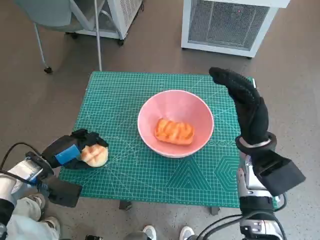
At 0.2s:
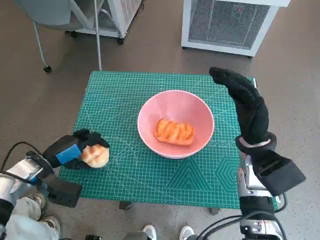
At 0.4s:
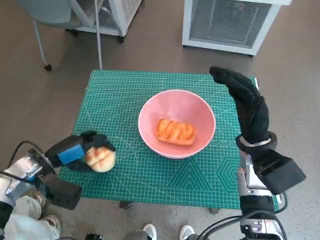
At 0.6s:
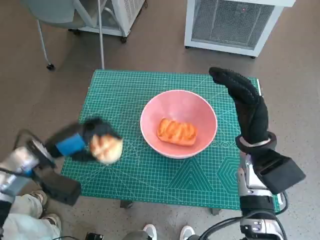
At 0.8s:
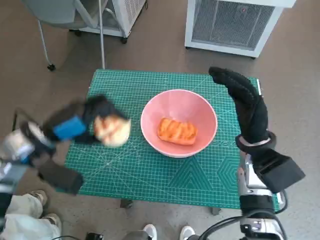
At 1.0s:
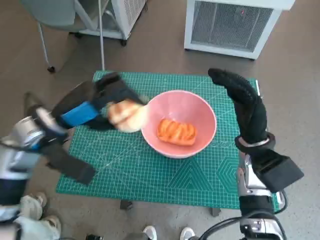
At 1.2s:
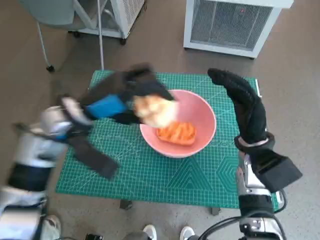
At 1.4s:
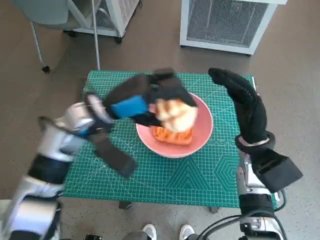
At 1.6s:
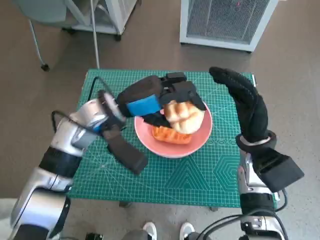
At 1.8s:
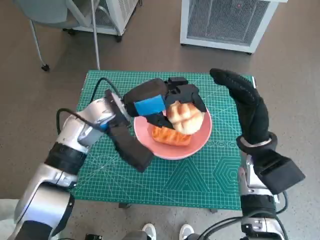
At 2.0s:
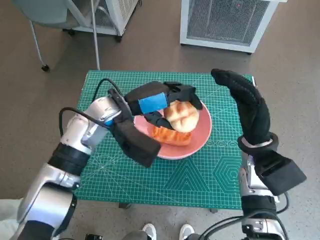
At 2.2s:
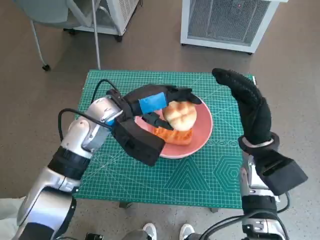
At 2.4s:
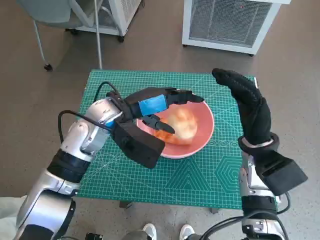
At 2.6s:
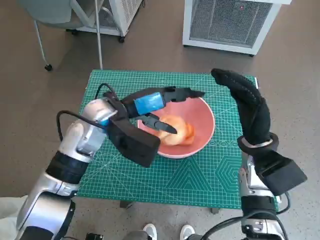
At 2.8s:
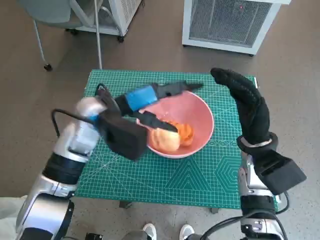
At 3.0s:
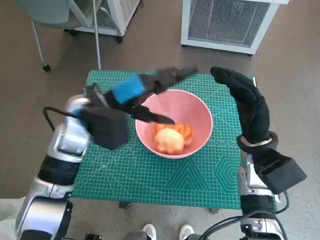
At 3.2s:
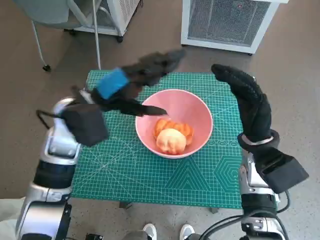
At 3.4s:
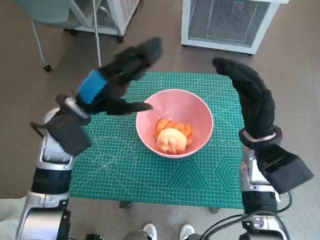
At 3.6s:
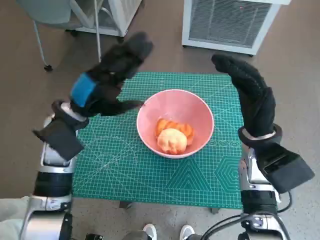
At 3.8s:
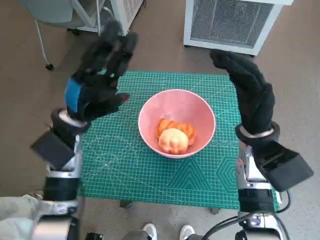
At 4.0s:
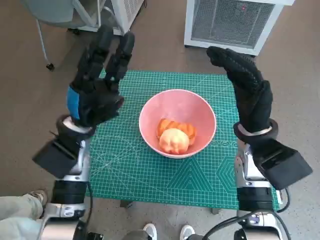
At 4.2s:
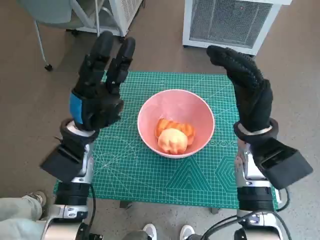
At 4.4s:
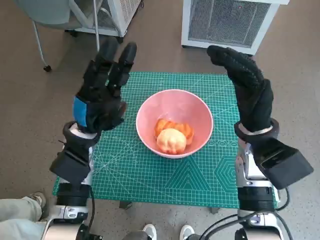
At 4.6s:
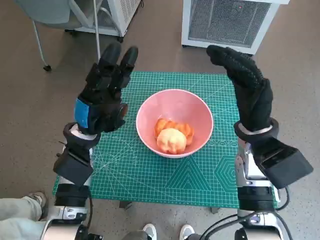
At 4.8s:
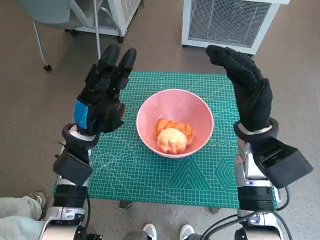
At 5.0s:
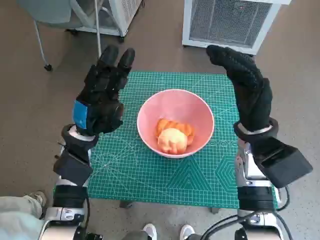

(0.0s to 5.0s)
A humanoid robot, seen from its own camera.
Task of the whole recording: Push the bowl to the center of the table and put the bread into the bowl.
Step, 0.0s - 2.8s: Place the round bread in pink bowl with left hand.
0.0s - 1.6s: The left hand shifts some 25 cm to the right, upward and forward.
1.6s - 3.4s: The left hand heads to the left, covering approximately 5 cm.
3.4s - 5.0s: The left hand heads downward, covering approximately 5 cm.
